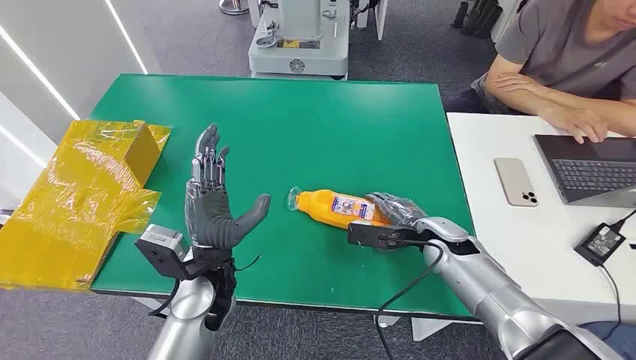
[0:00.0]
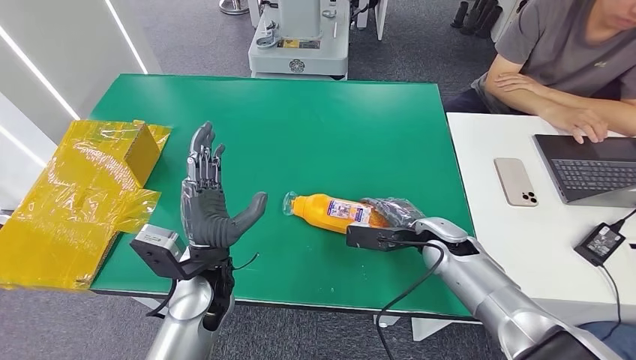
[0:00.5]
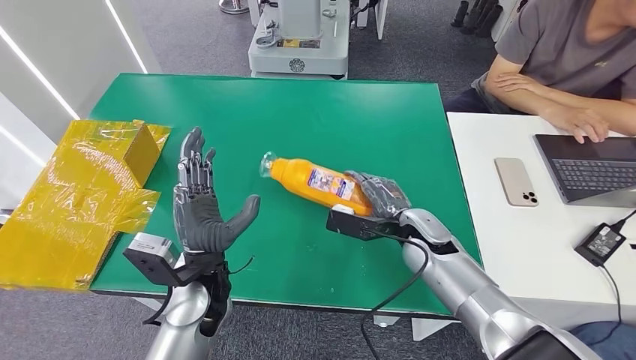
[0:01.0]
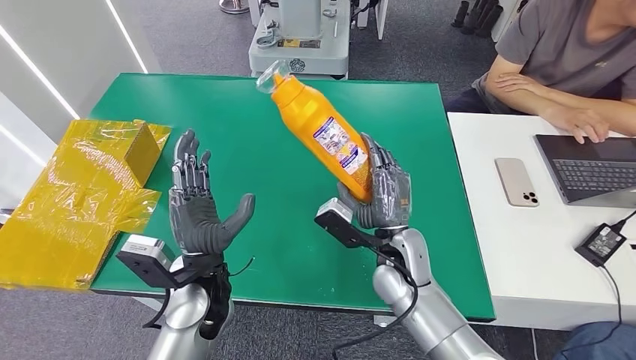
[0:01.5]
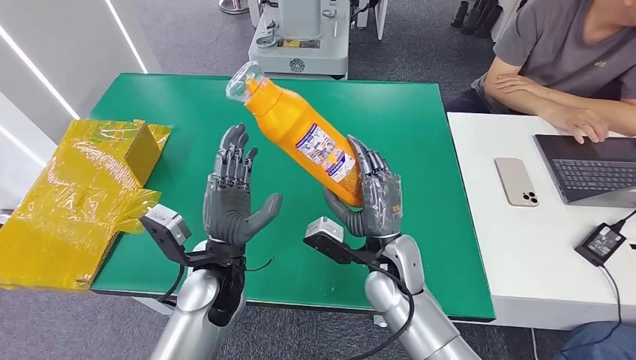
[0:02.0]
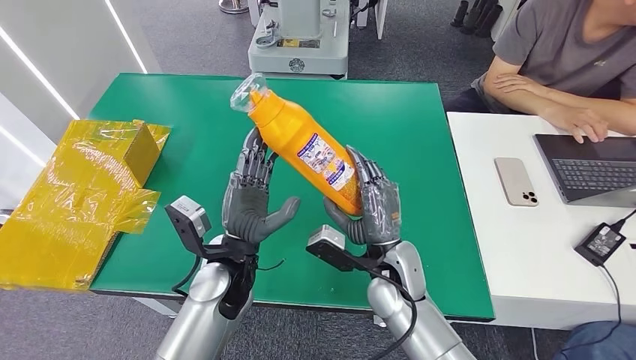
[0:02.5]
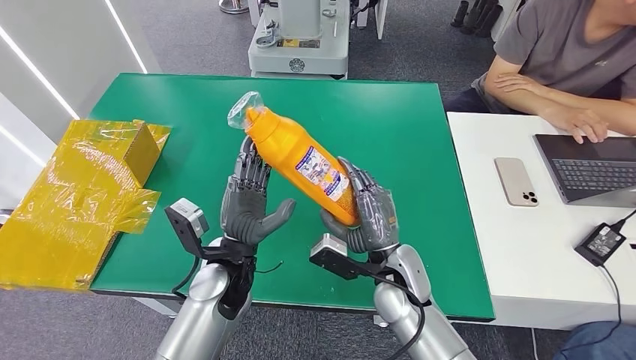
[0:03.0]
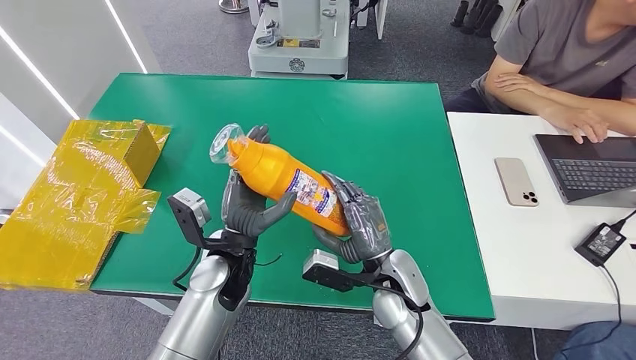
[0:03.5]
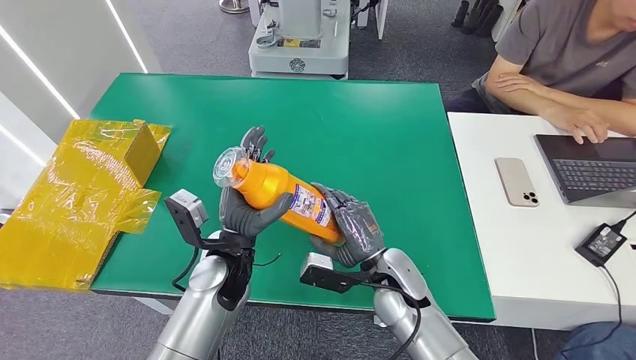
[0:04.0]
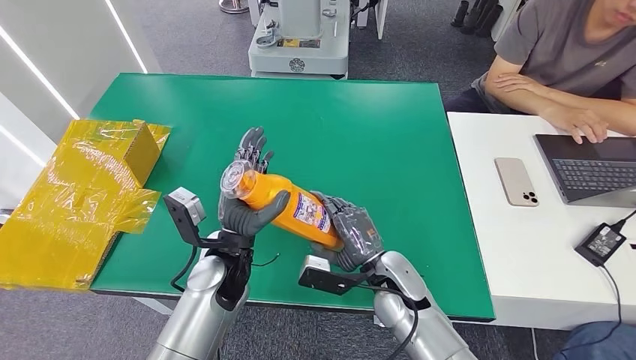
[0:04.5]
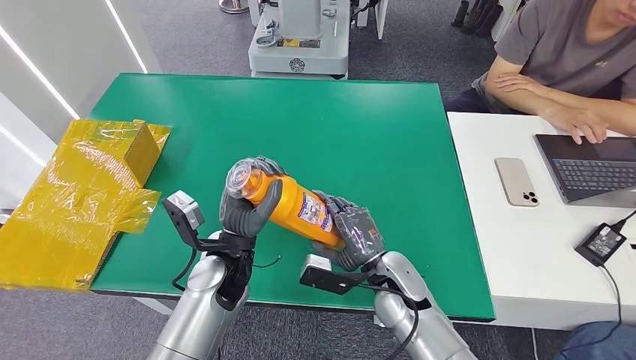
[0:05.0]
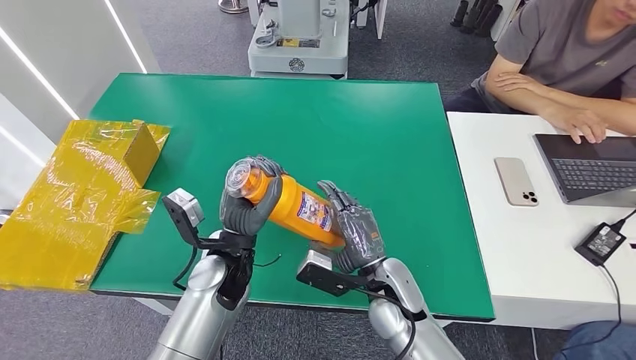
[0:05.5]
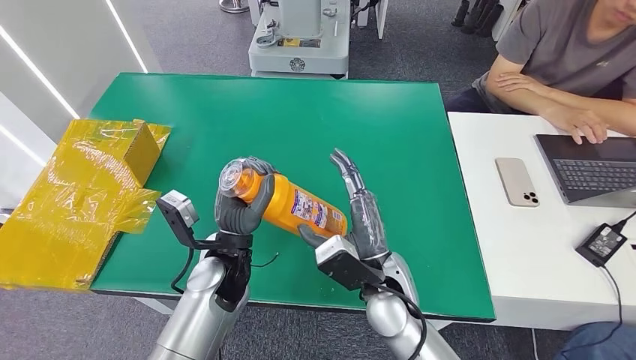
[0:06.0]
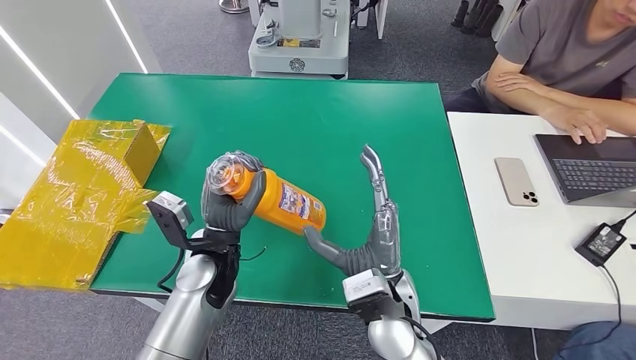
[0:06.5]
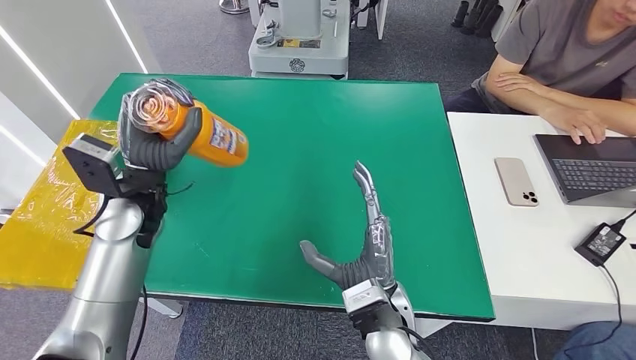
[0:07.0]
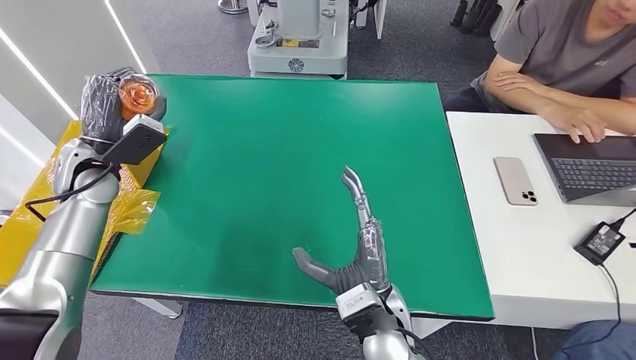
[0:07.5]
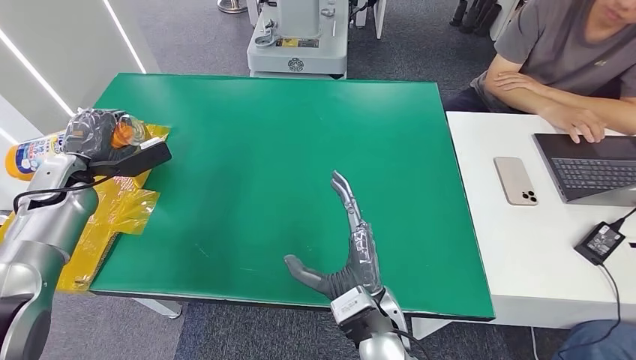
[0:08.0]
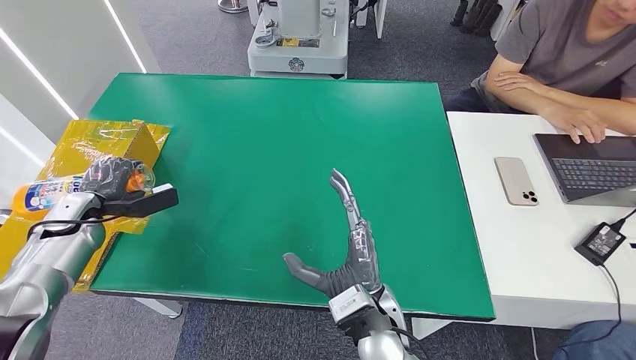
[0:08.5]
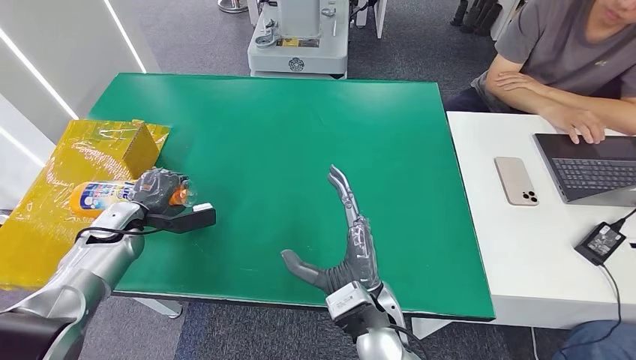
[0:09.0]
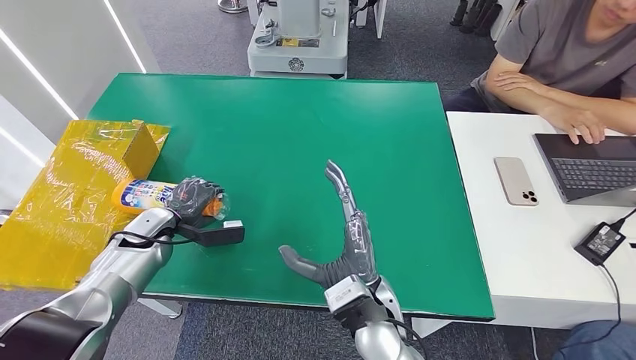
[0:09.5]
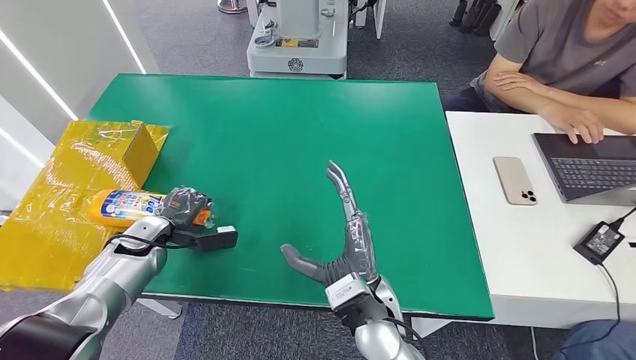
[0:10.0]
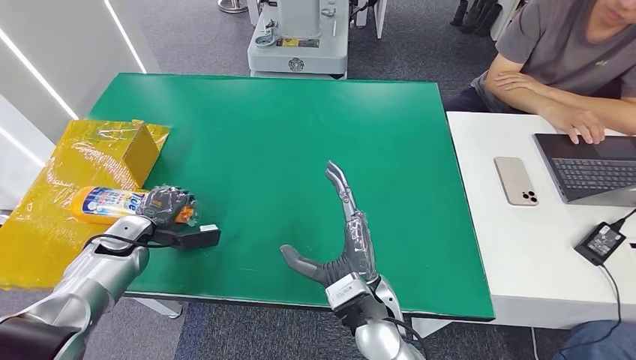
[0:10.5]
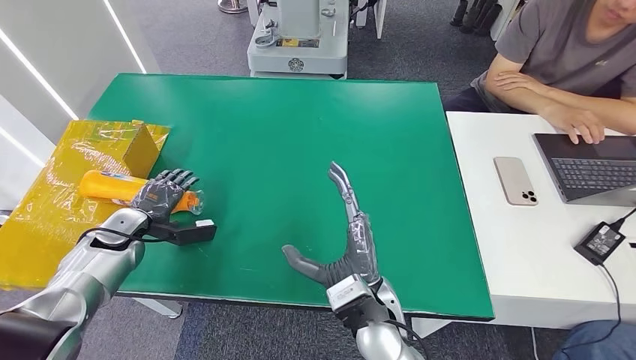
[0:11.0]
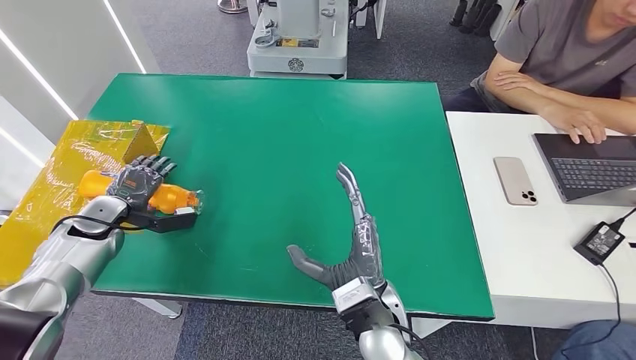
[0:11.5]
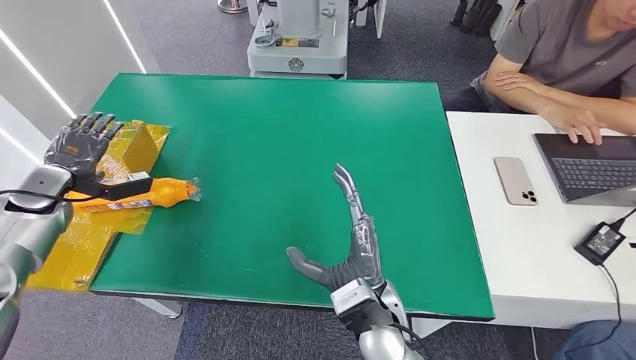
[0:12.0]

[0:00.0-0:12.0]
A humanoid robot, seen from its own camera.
Step, 0:00.0 to 0:02.5: Pick up the bottle from the table.
Step, 0:04.5 to 0:12.0: Turn the bottle to the front side.
0:04.0 to 0:06.0: The right hand ends up approximately 5 cm from where it was.
0:08.0 to 0:10.0: The left hand heads downward, to the right and backward, covering roughly 15 cm.
0:10.0 to 0:12.0: The left hand is displaced to the left and upward by approximately 20 cm.
